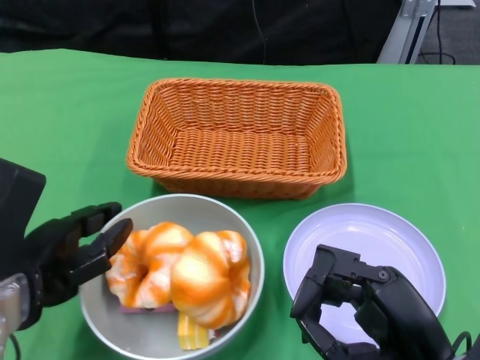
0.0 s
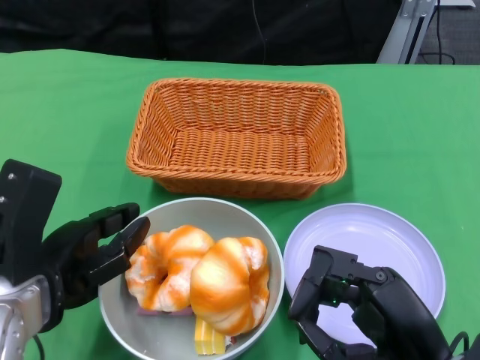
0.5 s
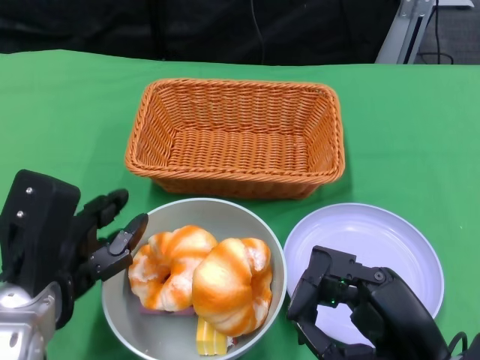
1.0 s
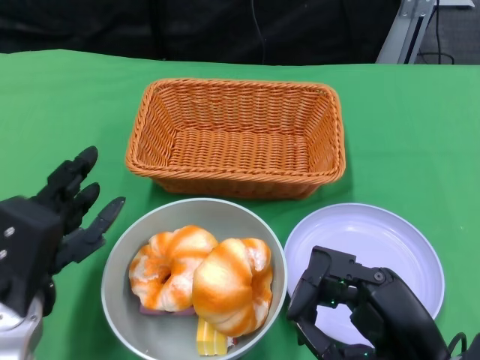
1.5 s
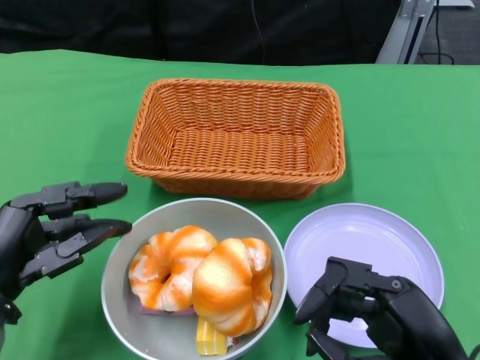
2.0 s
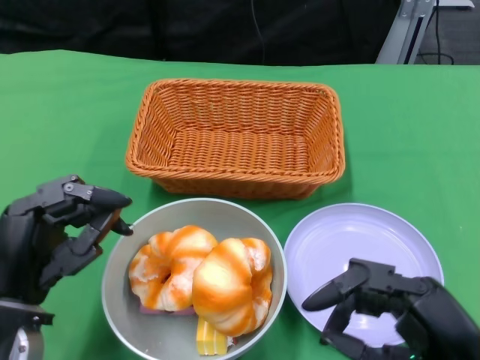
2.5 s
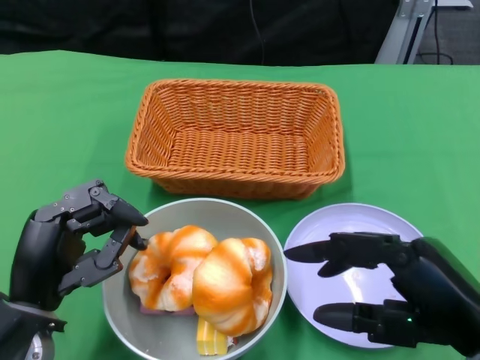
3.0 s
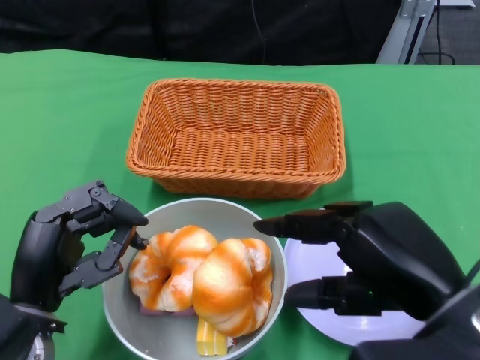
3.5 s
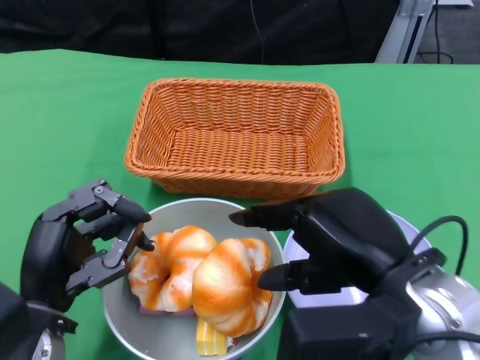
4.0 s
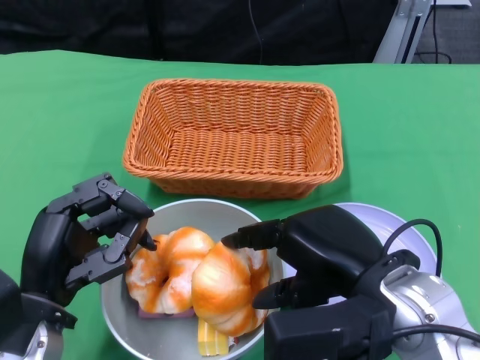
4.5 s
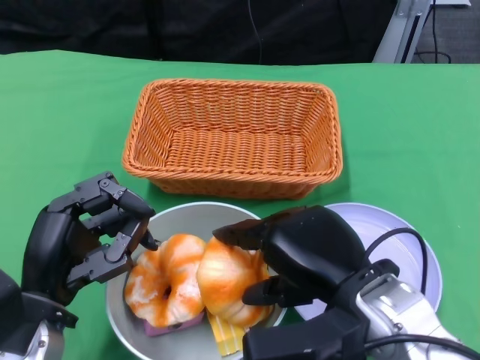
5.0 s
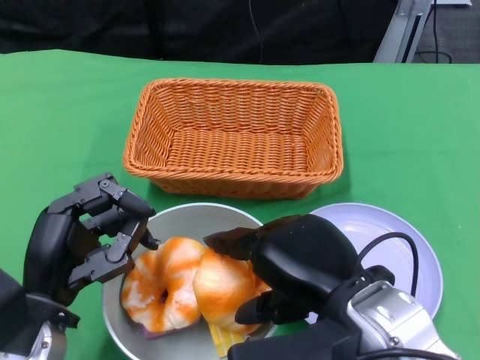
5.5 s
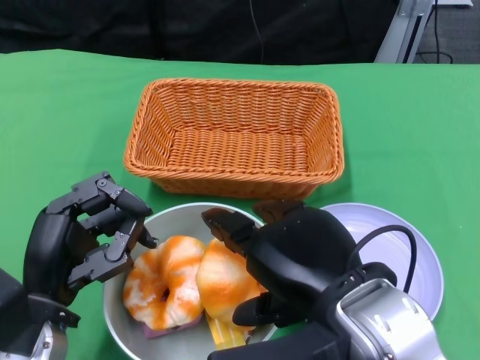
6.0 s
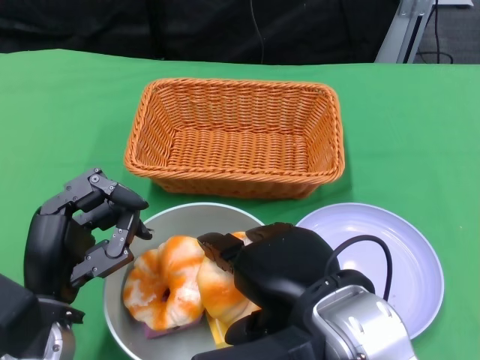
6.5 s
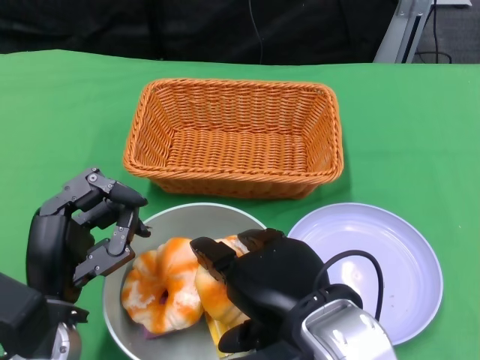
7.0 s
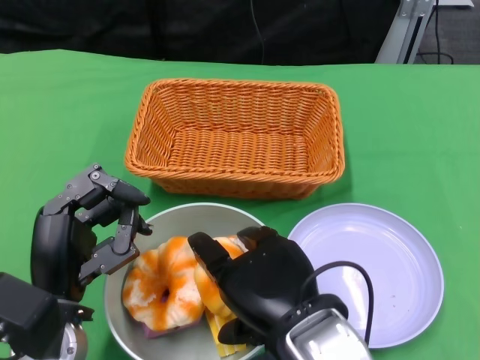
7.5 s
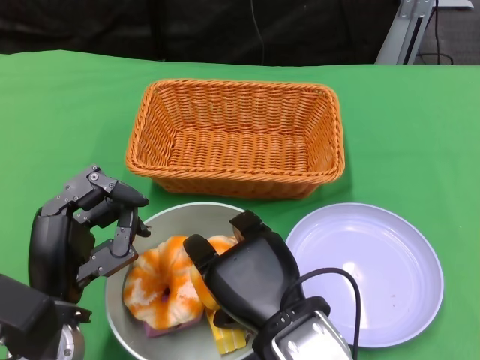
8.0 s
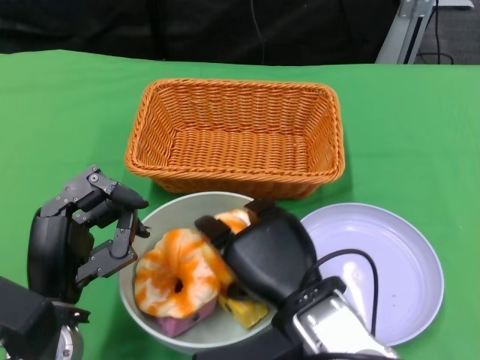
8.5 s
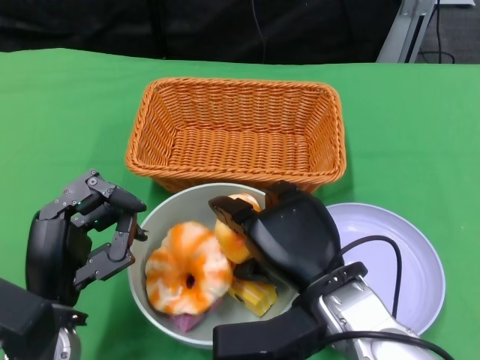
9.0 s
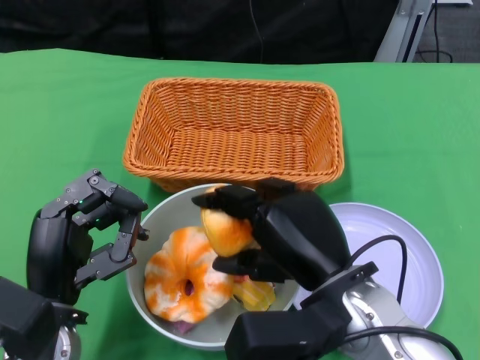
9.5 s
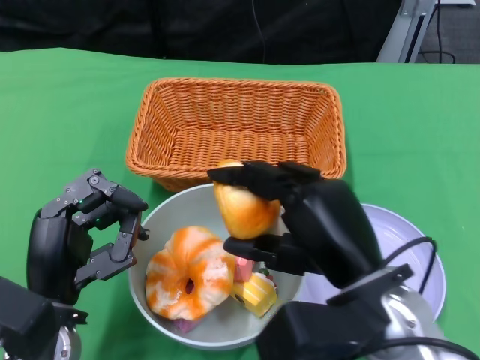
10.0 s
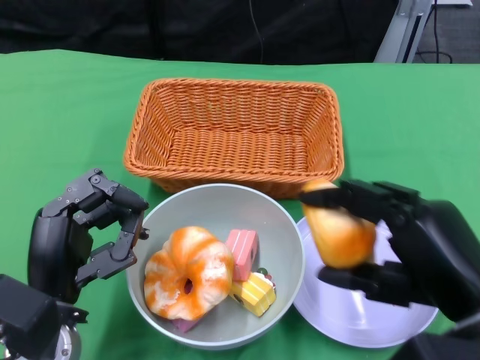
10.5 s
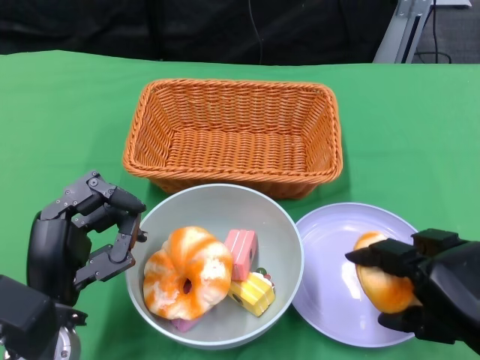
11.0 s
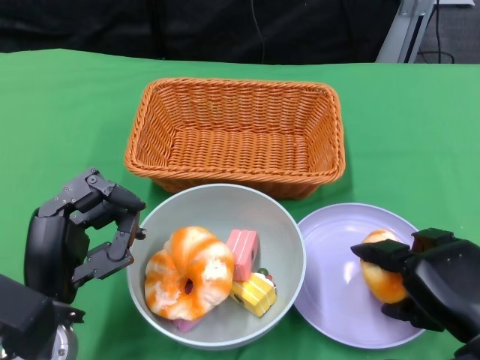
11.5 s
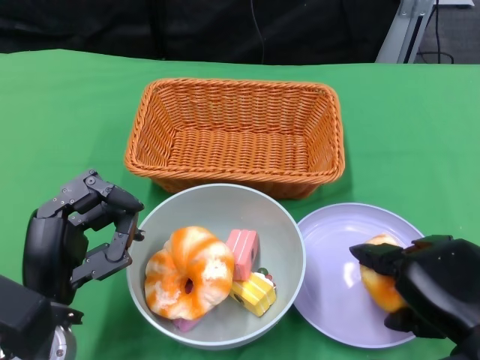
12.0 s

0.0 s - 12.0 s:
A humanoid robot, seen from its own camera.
2.0 s - 4.0 s: The right hand is displaced upward and forward by roughly 10 cm; the left hand shifts by roughly 5 cm.
6.0 s - 8.0 s: The right hand is displaced downward by about 5 cm.
8.0 s - 10.0 s: The right hand is displaced to the right by approximately 5 cm.
10.0 s - 12.0 s: The right hand moves to the right, approximately 10 cm.

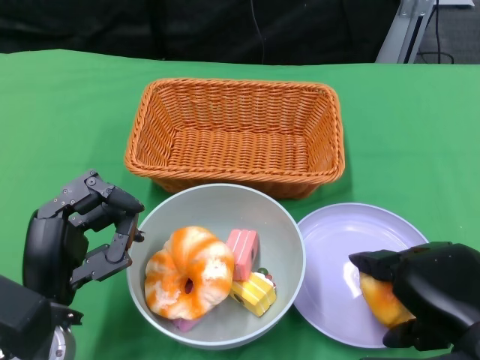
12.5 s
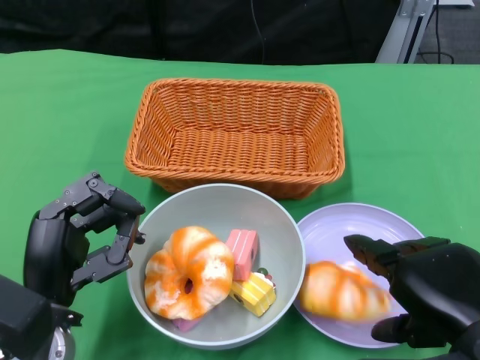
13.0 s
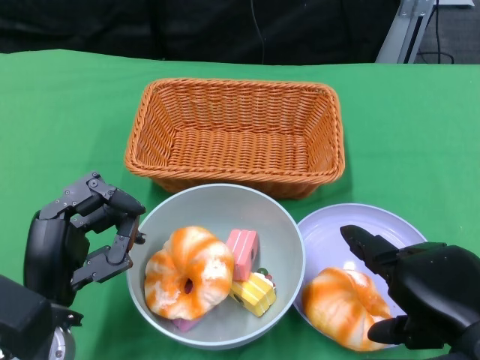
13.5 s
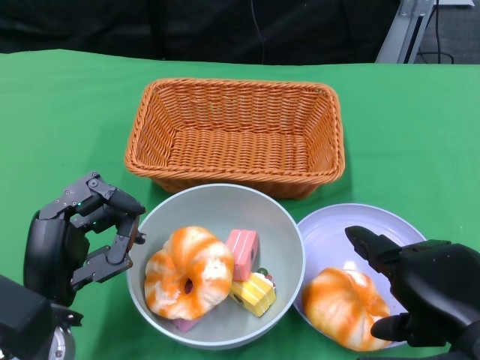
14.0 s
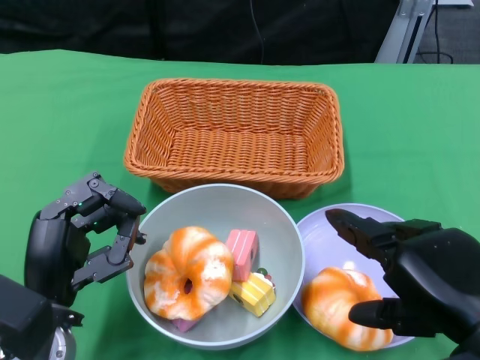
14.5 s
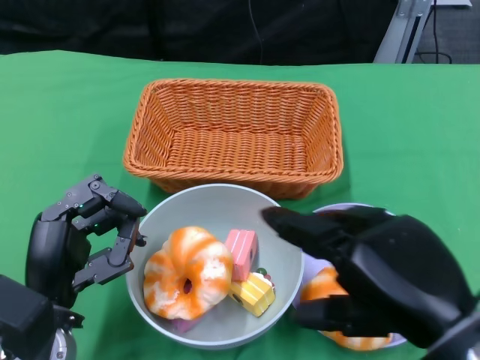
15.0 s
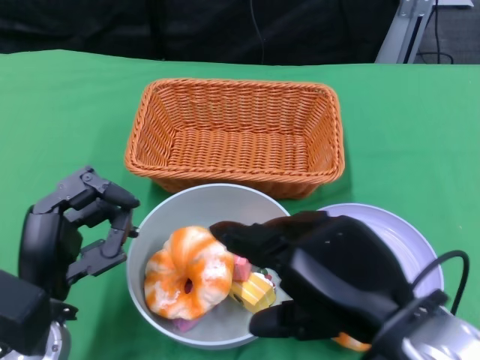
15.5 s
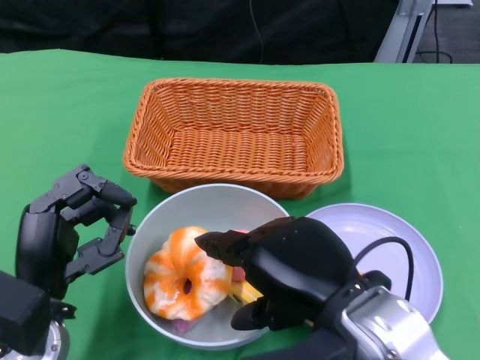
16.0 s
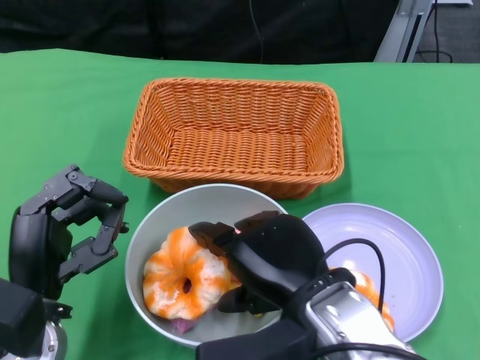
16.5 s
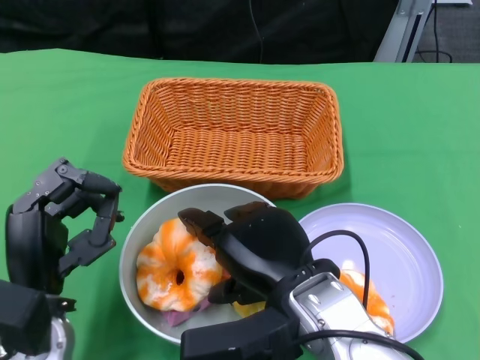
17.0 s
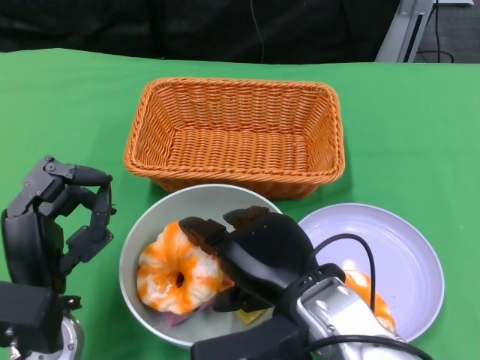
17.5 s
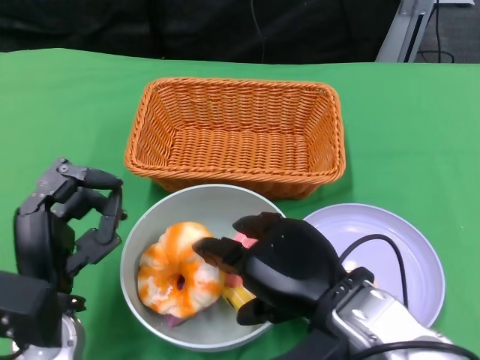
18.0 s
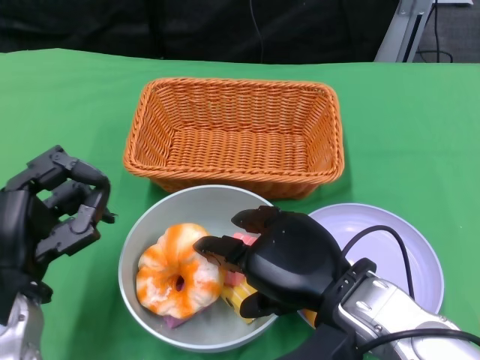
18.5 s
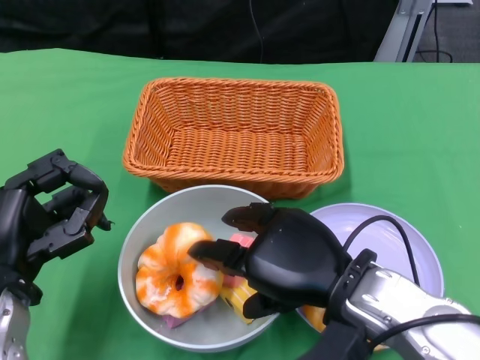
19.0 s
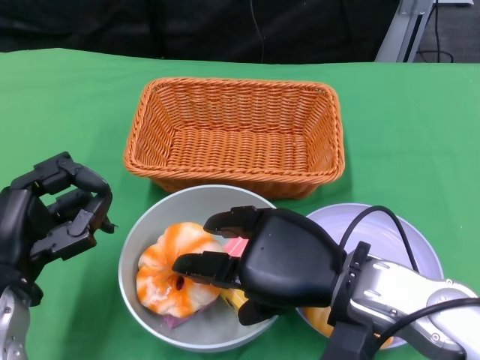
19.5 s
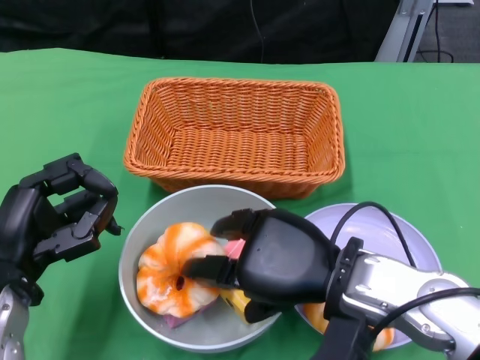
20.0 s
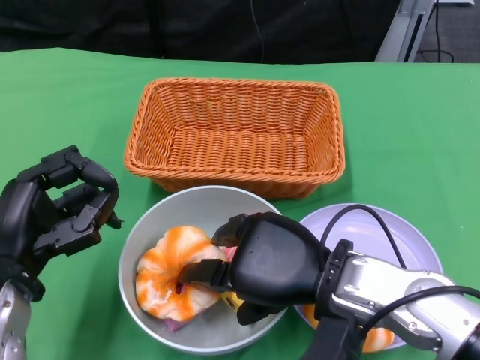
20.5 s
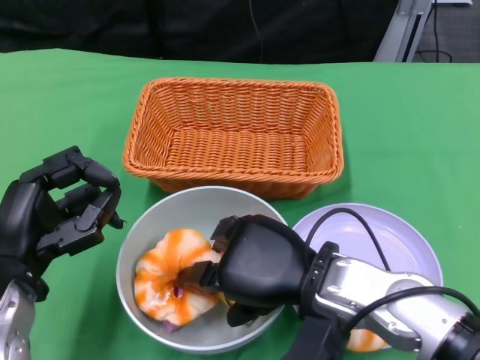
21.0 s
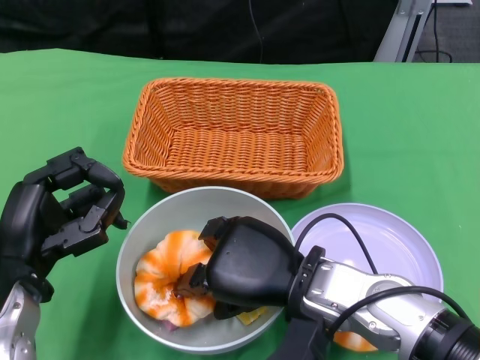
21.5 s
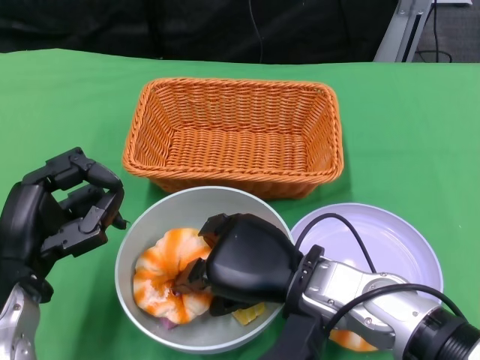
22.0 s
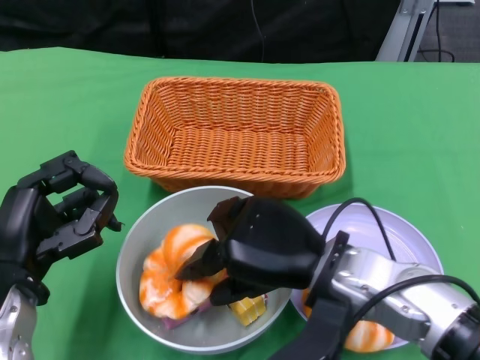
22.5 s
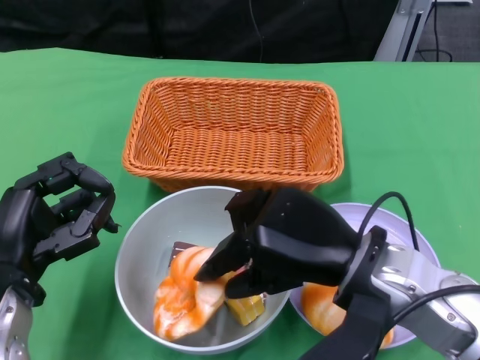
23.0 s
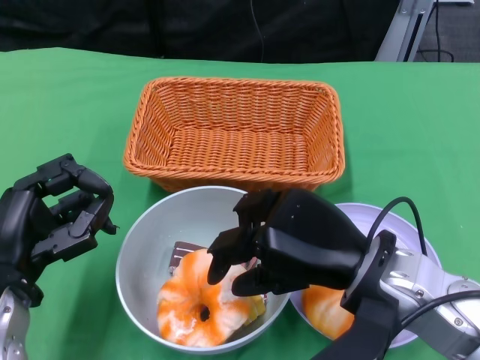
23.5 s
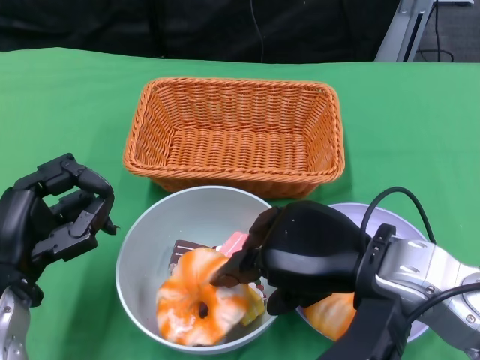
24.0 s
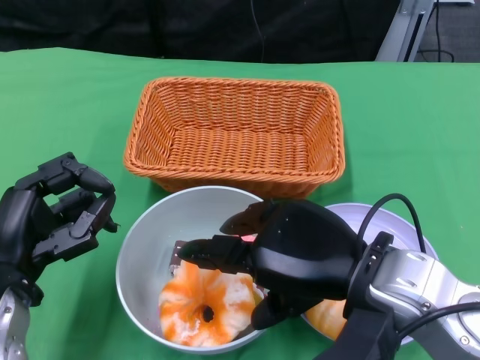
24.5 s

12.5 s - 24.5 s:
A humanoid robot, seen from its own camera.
12.5 s - 14.5 s: There are only small adjustments of the hands.
14.5 s - 16.5 s: The right hand travels to the left by some 15 cm.
20.5 s - 22.5 s: The hands make only small movements.
22.5 s - 24.5 s: The right hand moves approximately 5 cm.

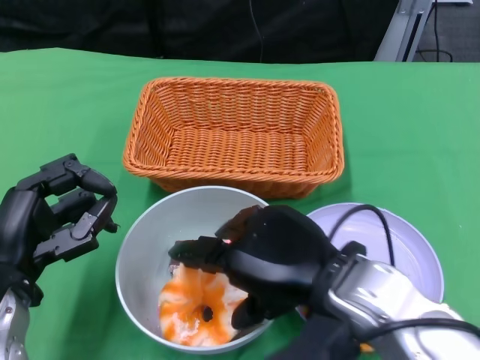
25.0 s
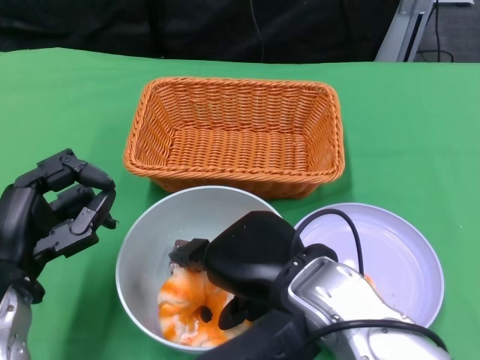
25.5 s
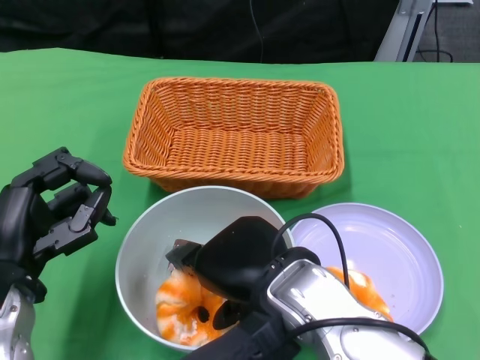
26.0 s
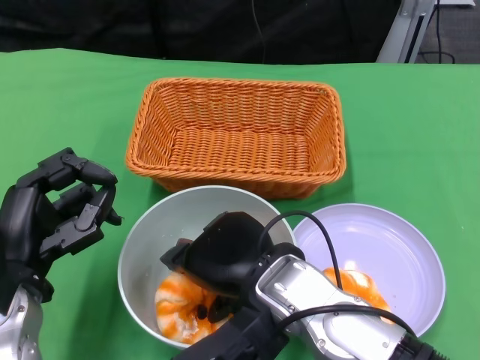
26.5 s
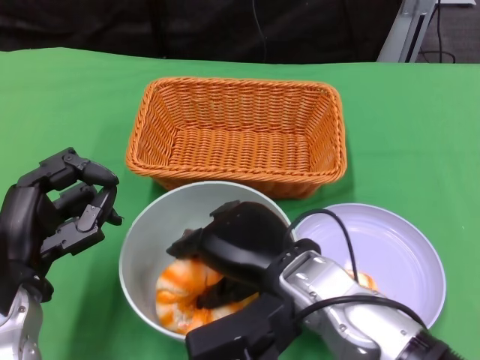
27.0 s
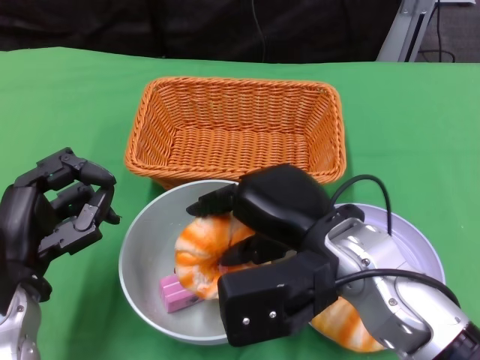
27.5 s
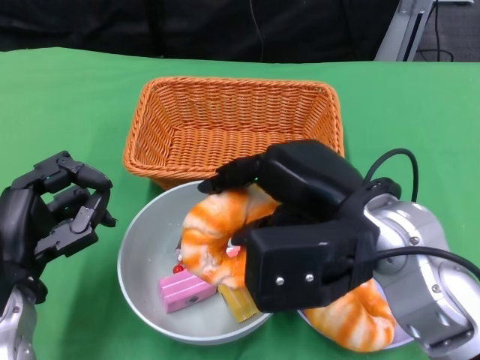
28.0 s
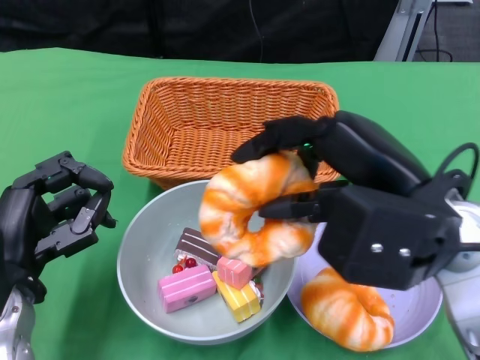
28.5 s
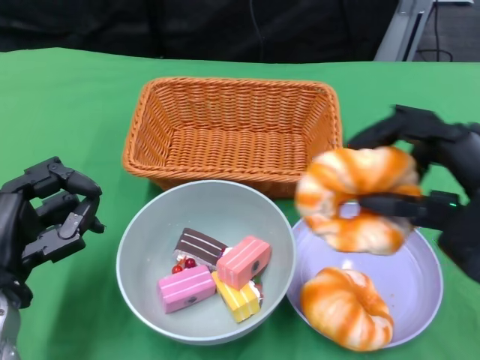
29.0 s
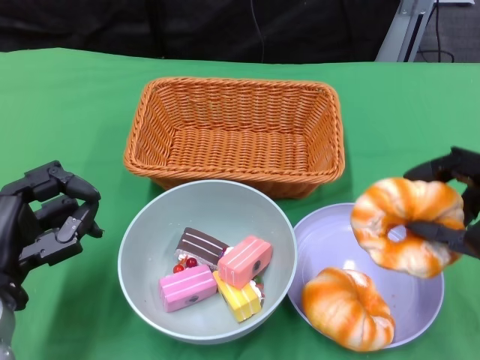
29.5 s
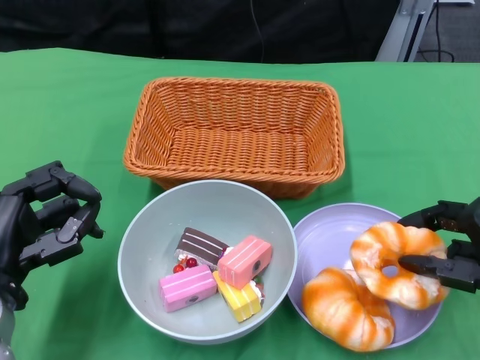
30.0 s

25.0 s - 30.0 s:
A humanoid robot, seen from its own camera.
27.5 s - 30.0 s: The right hand goes some 20 cm to the right.
